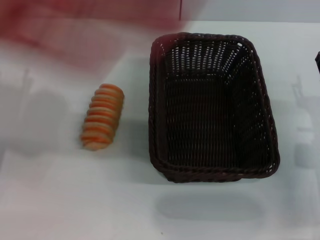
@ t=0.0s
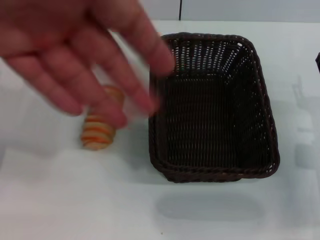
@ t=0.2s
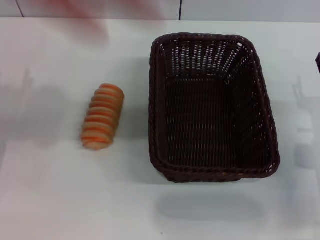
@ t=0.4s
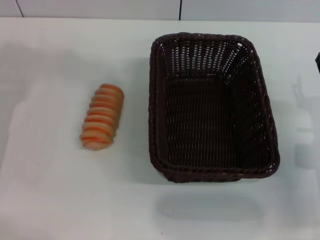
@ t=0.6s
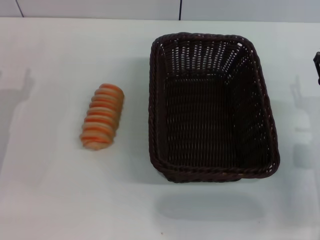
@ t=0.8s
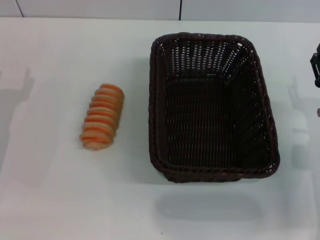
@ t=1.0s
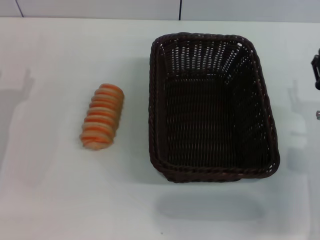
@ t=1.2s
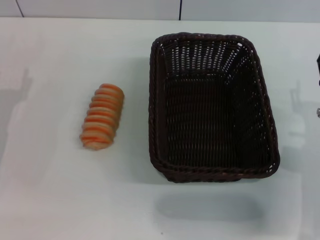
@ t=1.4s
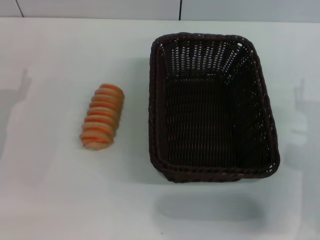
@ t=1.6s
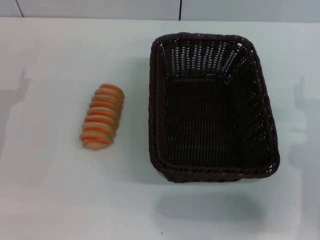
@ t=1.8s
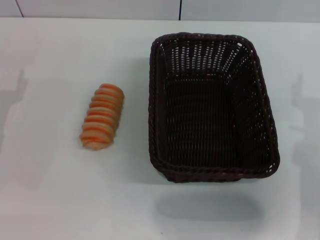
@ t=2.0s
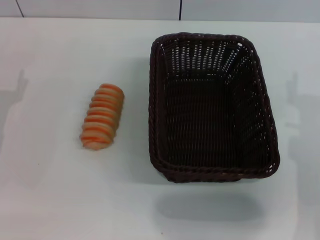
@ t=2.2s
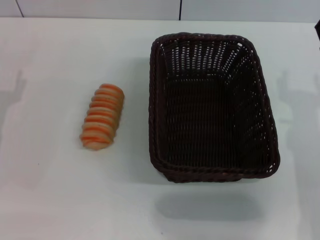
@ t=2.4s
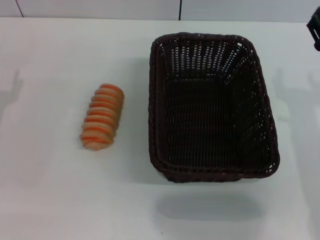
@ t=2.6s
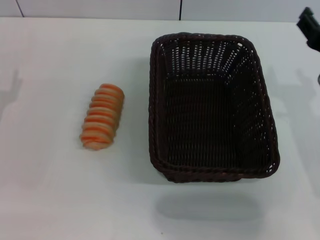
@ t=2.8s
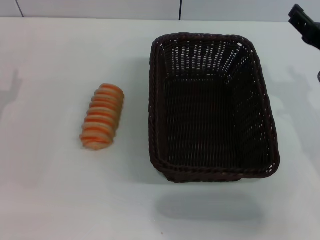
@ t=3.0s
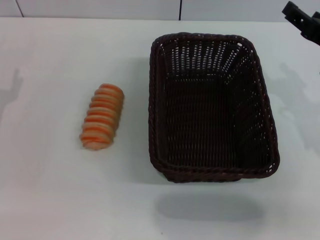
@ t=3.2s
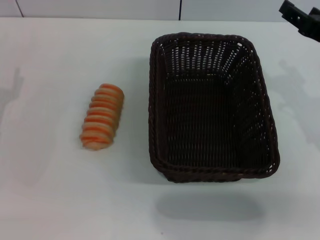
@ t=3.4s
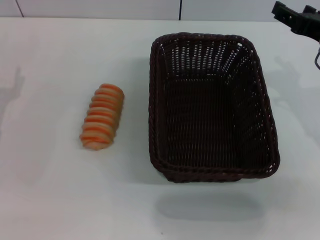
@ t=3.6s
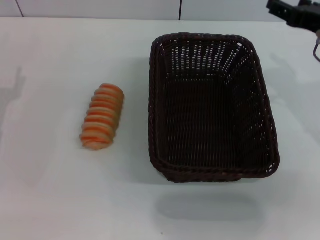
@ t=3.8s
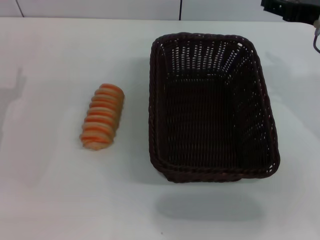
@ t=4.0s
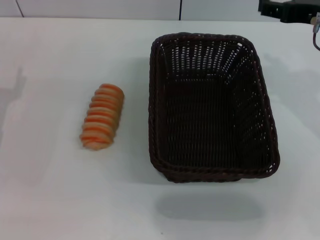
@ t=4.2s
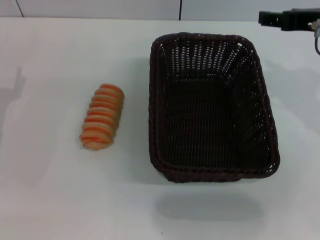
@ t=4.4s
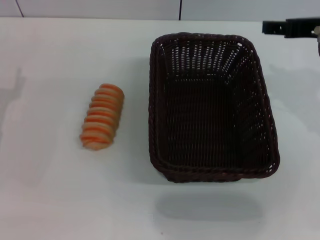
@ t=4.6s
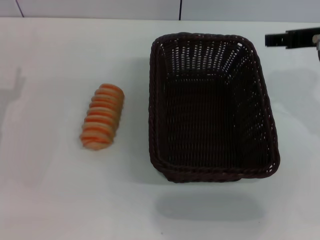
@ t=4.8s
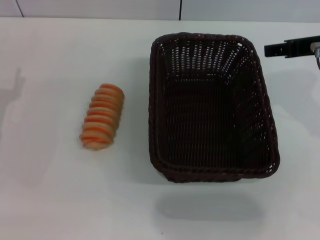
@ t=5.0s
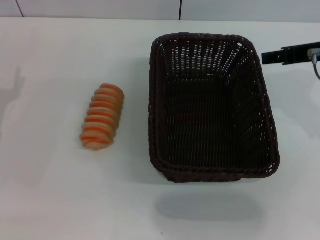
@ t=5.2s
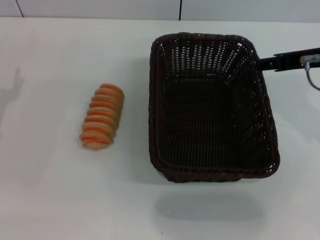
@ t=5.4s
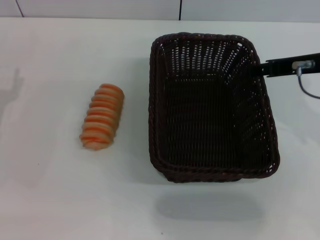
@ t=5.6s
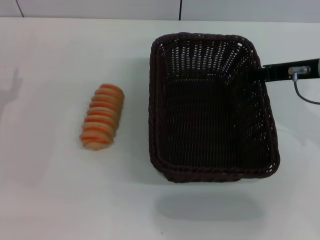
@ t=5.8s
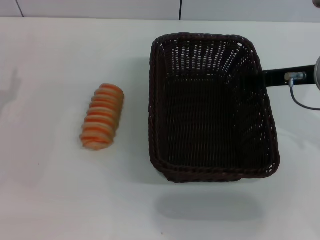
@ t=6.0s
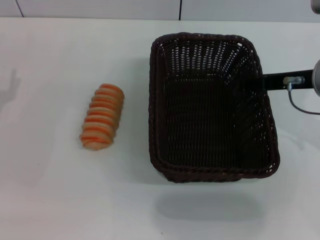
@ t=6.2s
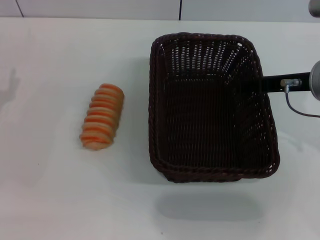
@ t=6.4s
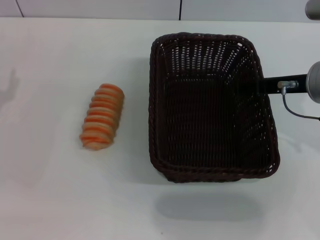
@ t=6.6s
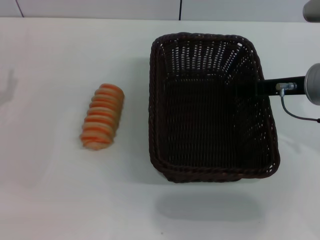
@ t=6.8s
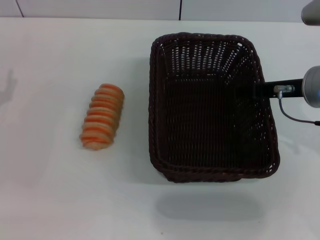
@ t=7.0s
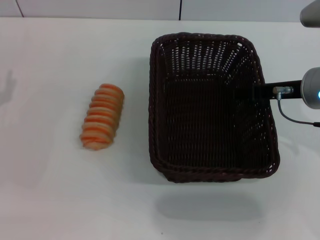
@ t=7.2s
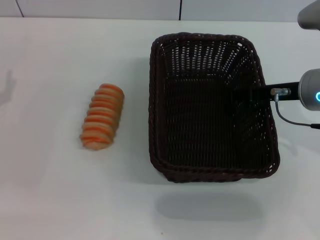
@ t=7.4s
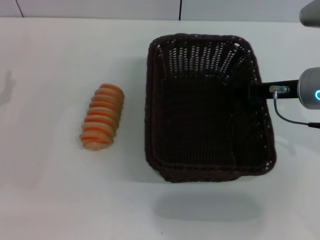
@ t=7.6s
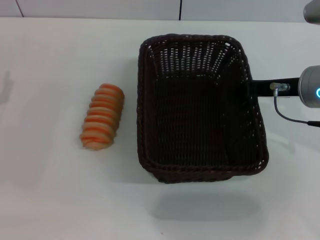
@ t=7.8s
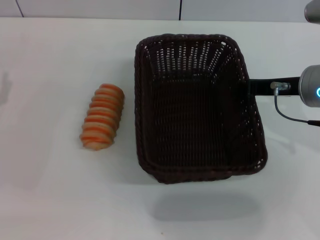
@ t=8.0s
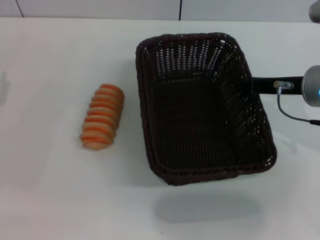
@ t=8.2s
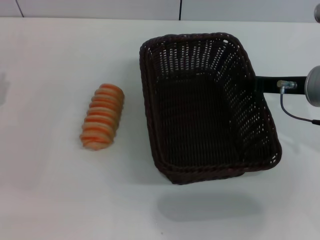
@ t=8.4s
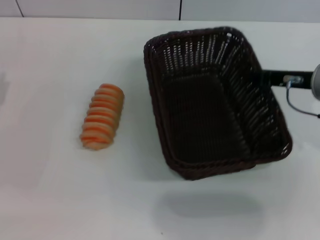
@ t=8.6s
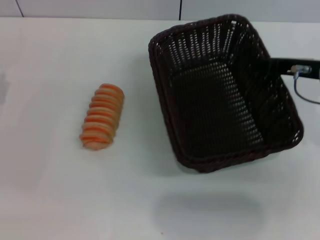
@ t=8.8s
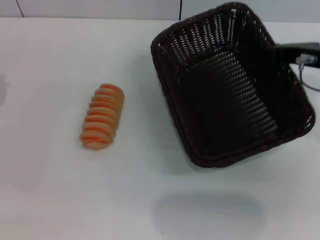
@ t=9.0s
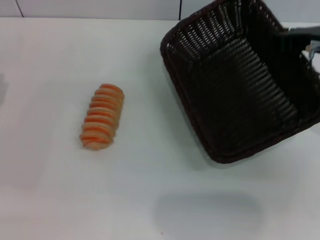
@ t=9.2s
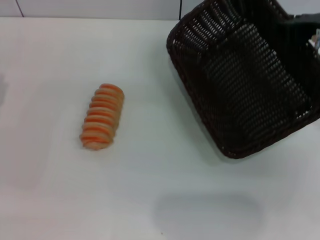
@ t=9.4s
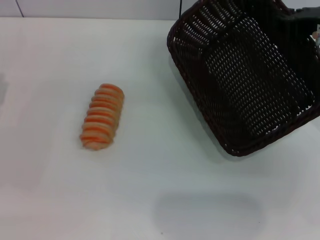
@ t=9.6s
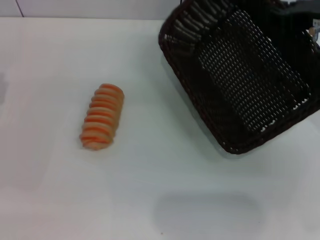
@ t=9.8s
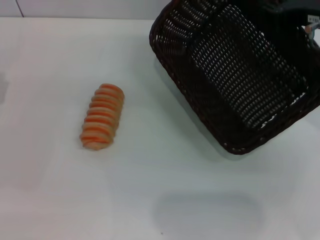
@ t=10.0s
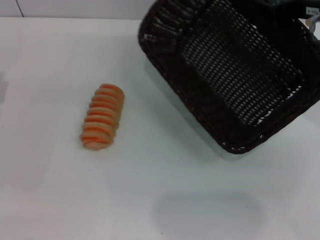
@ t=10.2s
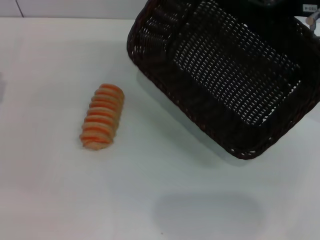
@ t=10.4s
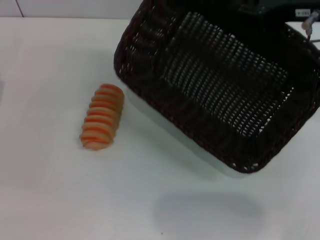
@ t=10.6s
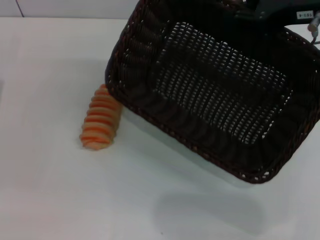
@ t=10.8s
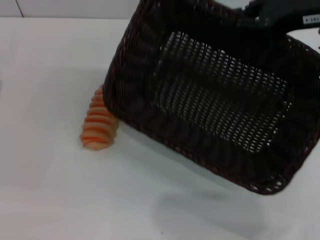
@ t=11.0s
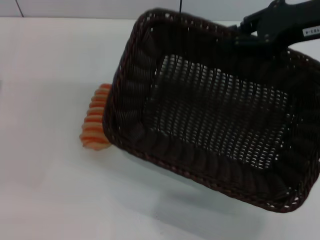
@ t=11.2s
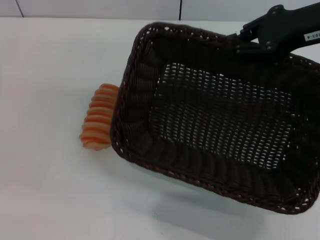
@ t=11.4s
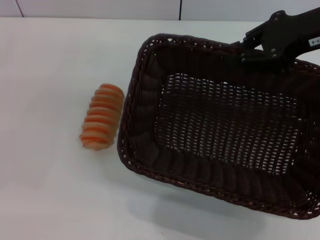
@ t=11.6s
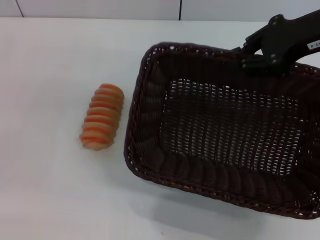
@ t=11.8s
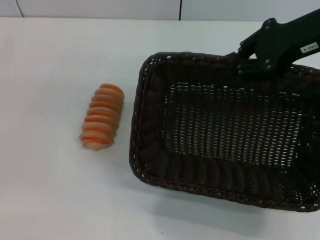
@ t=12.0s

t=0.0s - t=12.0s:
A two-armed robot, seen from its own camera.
Step, t=0.0s - t=8.8s: Pick up the dark basket with the right gripper.
t=1.6s - t=3.0s: The right gripper travels upward by about 10 cm.
t=3.0s - t=4.4s: The right gripper goes approximately 5 cm upward.
t=4.4s - t=6.0s: The grippers stay close to where they were, moving slightly.
t=6.0s - t=7.6s: The grippers stay close to where they were, moving slightly.
t=7.6s - t=9.0s: The right gripper closes up.
t=9.0s - t=10.4s: The right gripper heads upward, covering roughly 5 cm.

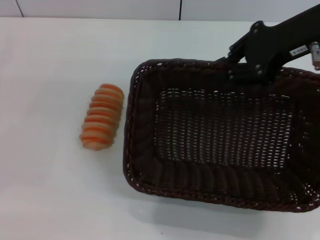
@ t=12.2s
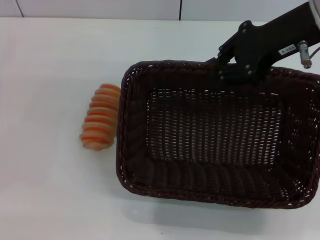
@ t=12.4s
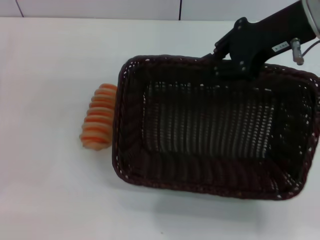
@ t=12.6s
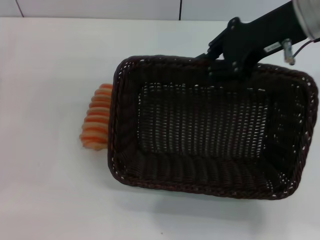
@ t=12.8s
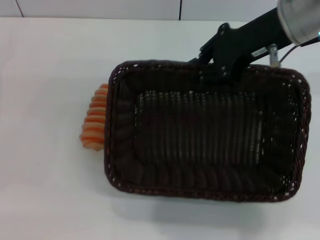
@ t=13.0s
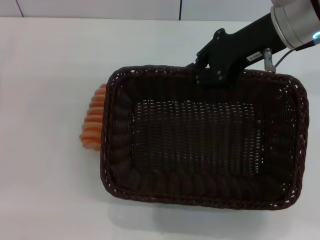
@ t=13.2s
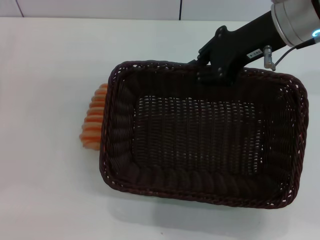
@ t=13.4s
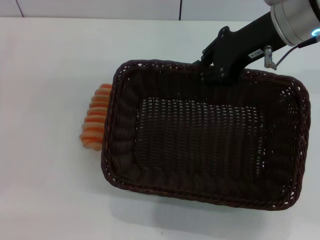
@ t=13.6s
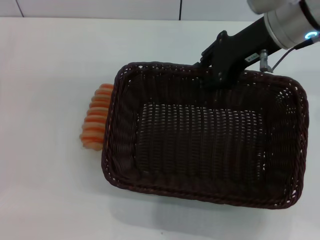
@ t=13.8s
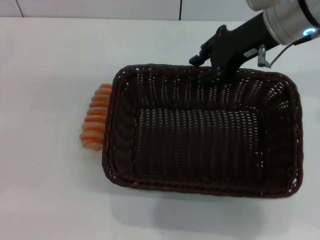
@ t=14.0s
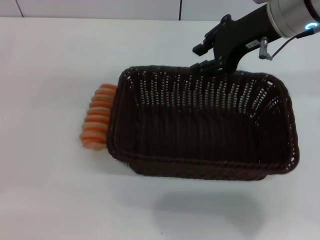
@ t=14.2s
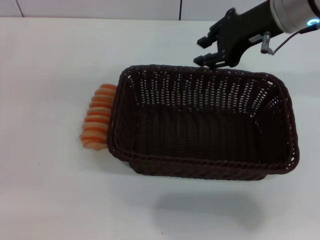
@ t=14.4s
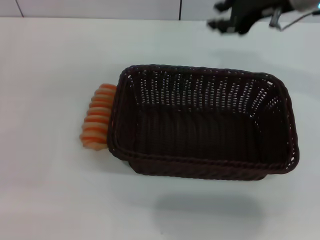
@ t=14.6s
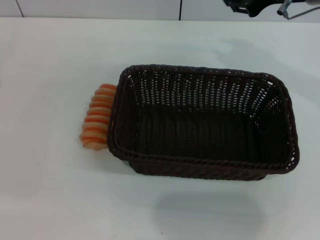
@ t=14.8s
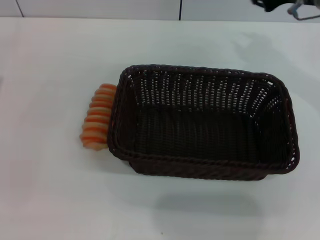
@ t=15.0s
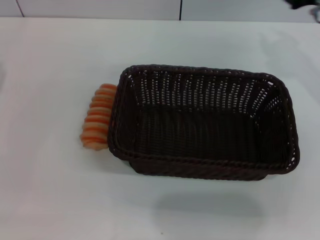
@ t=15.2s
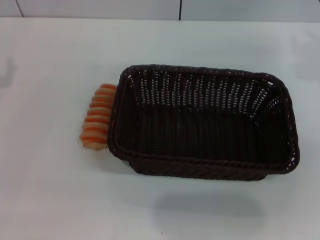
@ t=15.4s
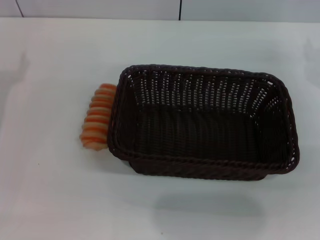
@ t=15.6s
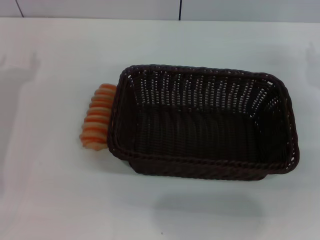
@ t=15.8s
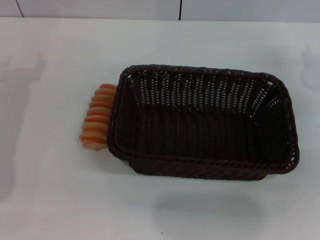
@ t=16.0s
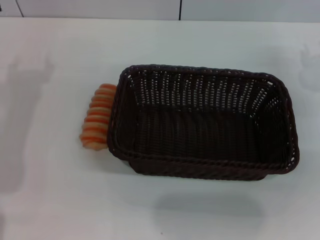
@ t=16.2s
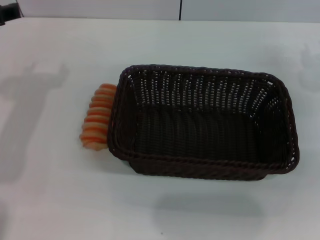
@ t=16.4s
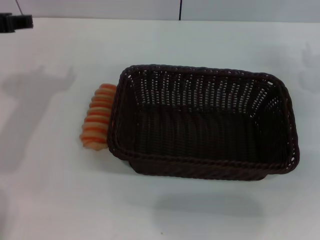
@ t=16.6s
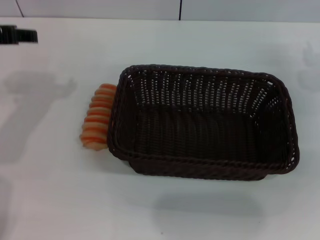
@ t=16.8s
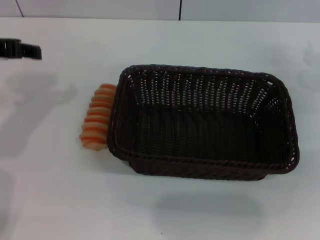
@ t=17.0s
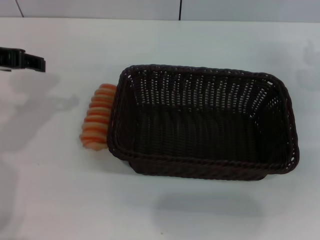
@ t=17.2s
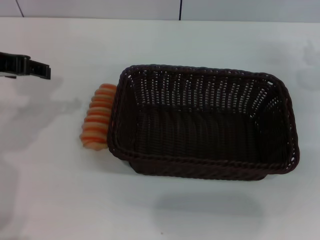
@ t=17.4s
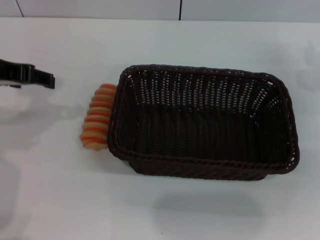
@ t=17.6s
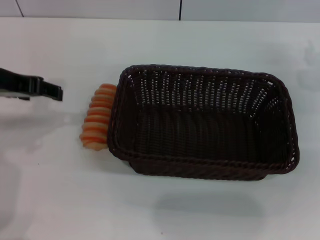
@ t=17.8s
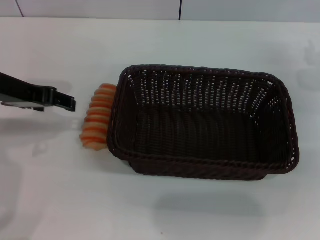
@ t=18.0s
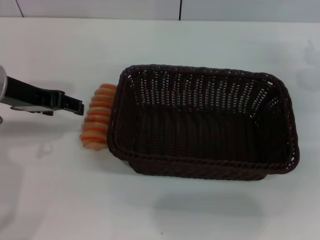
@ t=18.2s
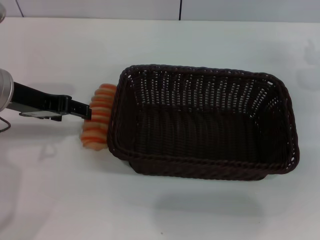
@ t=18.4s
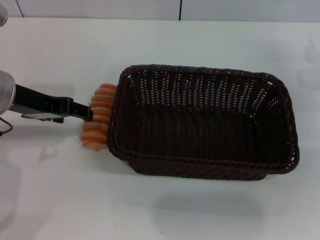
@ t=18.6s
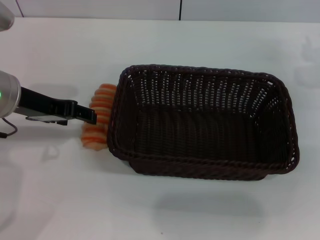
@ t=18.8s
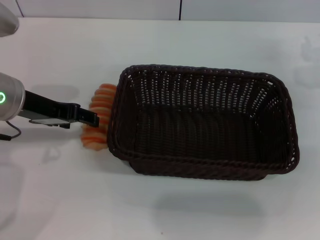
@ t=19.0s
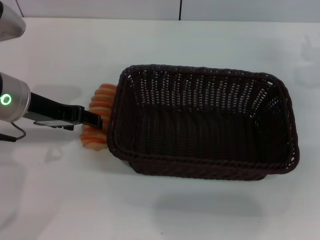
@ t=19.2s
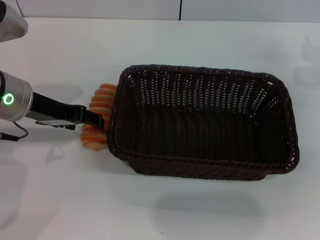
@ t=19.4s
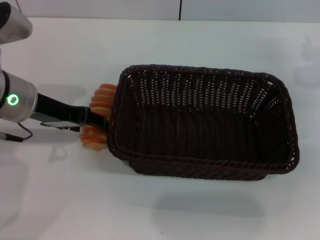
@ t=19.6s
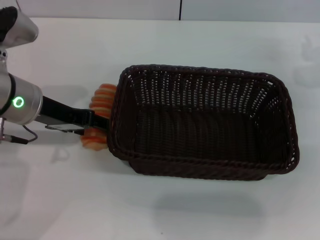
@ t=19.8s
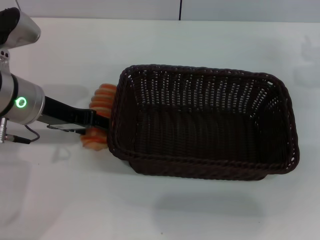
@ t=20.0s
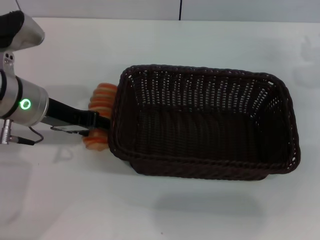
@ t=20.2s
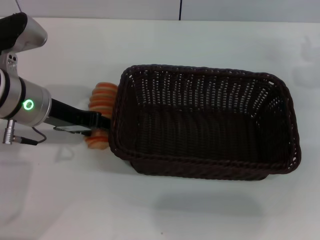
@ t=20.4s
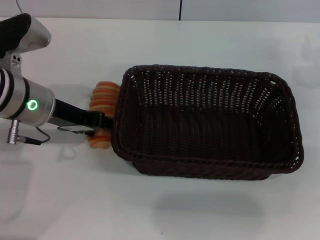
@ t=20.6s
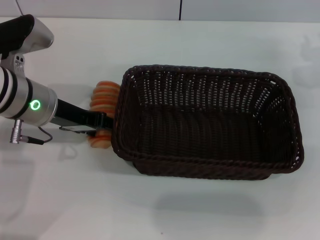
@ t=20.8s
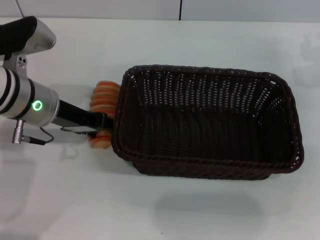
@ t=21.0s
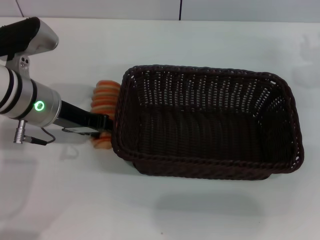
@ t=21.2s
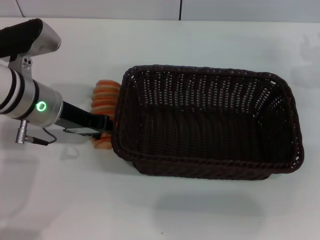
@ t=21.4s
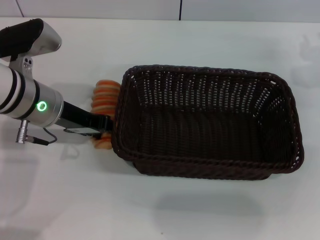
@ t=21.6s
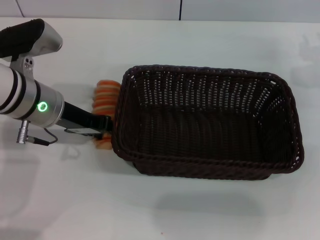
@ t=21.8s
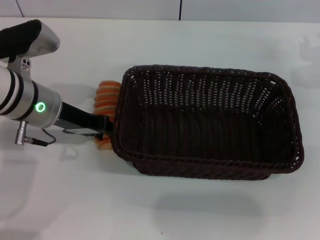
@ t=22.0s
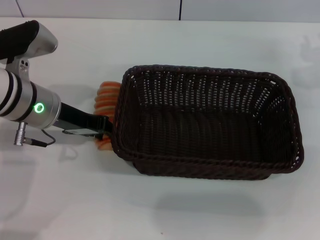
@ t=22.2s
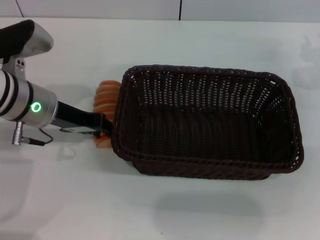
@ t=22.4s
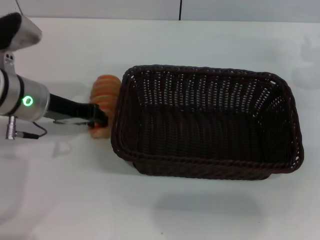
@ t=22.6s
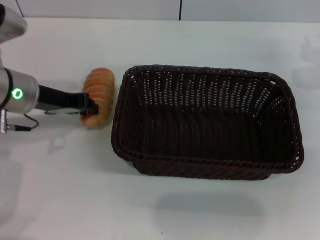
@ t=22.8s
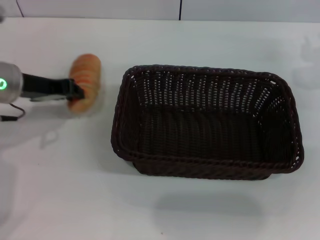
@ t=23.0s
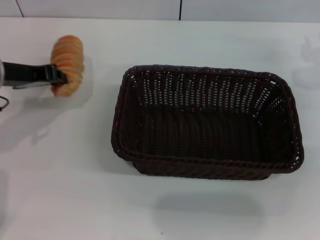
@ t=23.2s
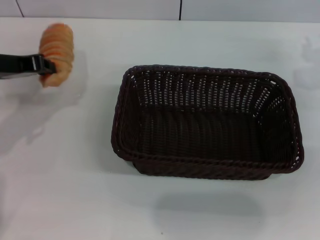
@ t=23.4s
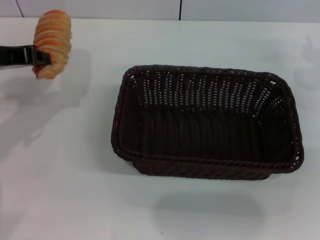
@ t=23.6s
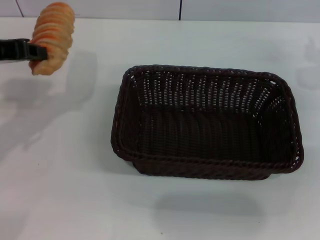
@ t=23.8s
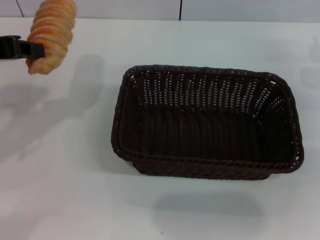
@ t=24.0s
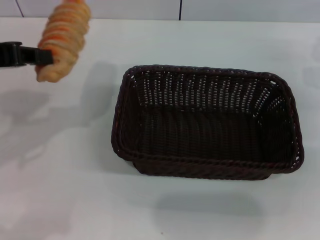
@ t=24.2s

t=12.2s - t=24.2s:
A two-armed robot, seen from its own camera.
Step, t=12.2s - t=14.8s: Place the dark basket in the center of view with the right gripper.
Step, t=15.0s - t=23.0s: Pick up the long bread with the left gripper.
t=12.2s - t=13.8s: The right gripper shifts by roughly 5 cm.
t=13.8s - t=15.2s: The right gripper is displaced to the right by some 10 cm.
t=15.2s - t=16.6s: The left gripper travels upward and to the right by approximately 15 cm. Meanwhile the right gripper shifts about 5 cm downward.
t=16.6s - t=18.2s: The left gripper ends up roughly 5 cm from where it was.
t=18.2s - t=19.8s: The left gripper moves about 5 cm.
t=19.8s - t=21.2s: The grippers stay close to where they were, moving slightly.
t=21.2s - t=22.6s: The left gripper closes.
t=22.6s - t=24.2s: The left gripper travels upward, backward and to the left by some 15 cm.
